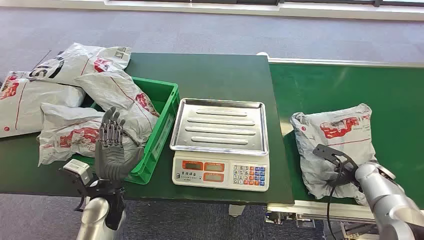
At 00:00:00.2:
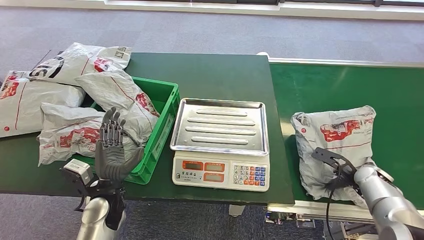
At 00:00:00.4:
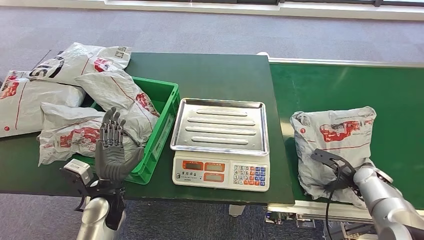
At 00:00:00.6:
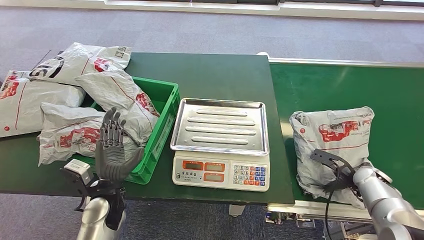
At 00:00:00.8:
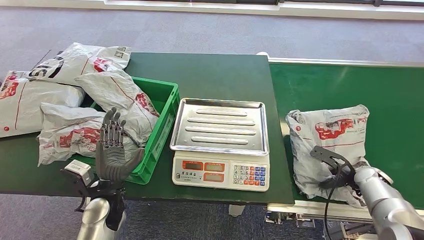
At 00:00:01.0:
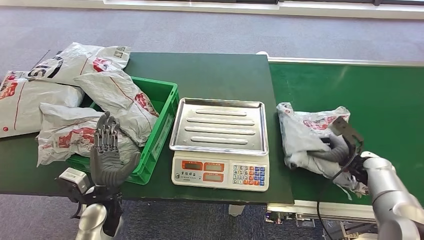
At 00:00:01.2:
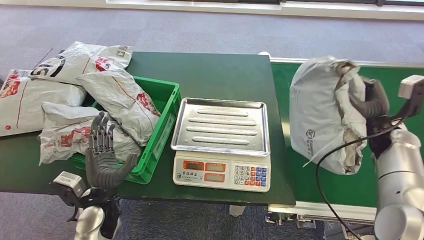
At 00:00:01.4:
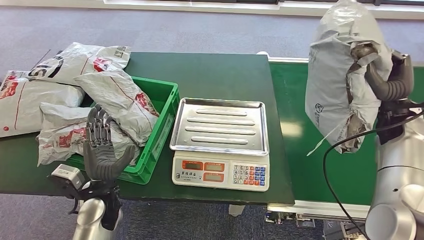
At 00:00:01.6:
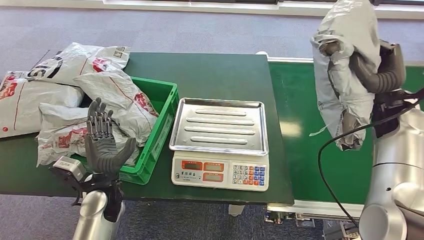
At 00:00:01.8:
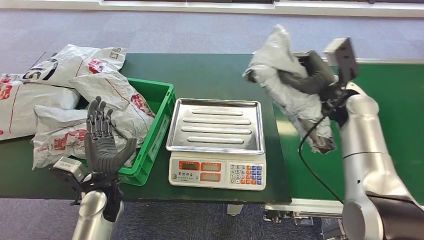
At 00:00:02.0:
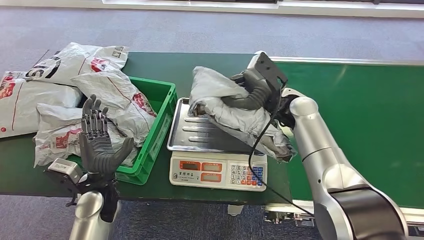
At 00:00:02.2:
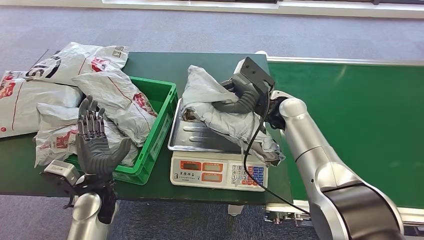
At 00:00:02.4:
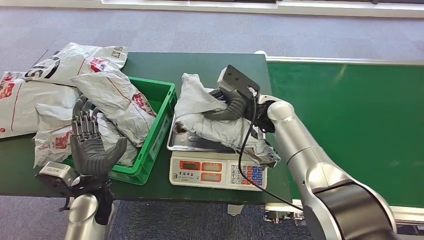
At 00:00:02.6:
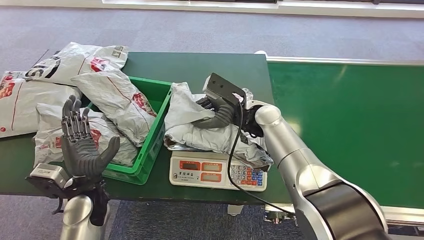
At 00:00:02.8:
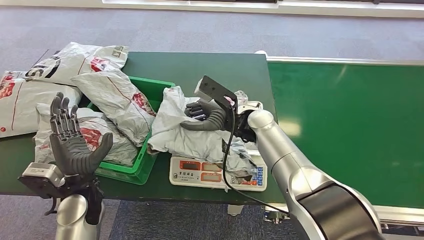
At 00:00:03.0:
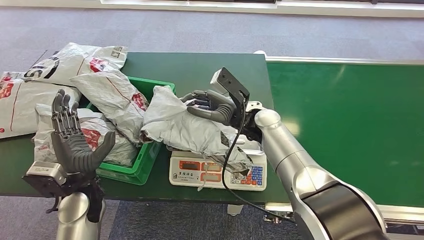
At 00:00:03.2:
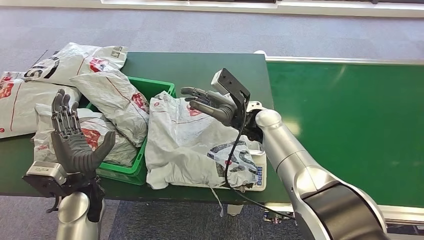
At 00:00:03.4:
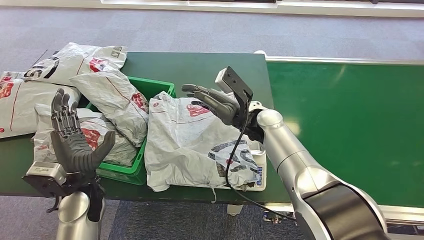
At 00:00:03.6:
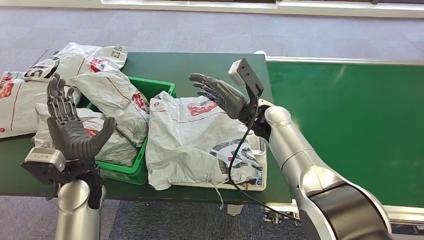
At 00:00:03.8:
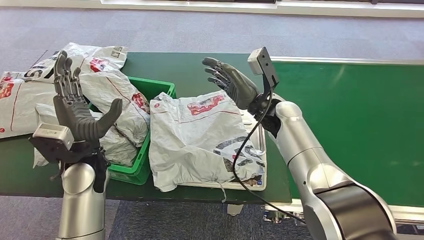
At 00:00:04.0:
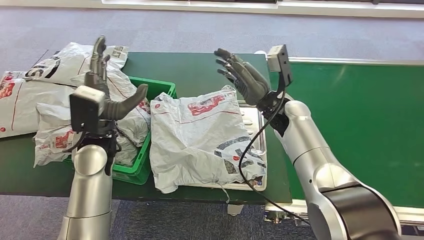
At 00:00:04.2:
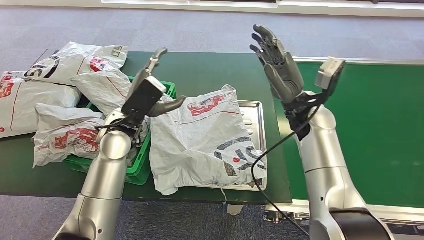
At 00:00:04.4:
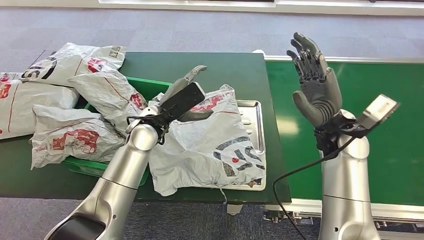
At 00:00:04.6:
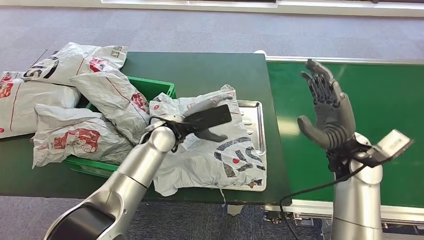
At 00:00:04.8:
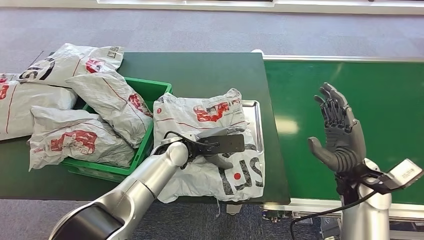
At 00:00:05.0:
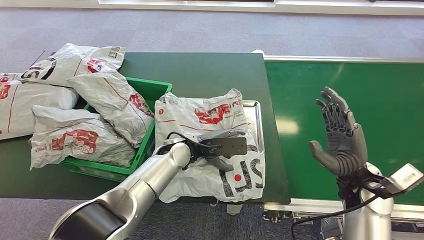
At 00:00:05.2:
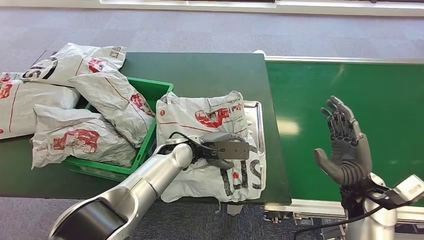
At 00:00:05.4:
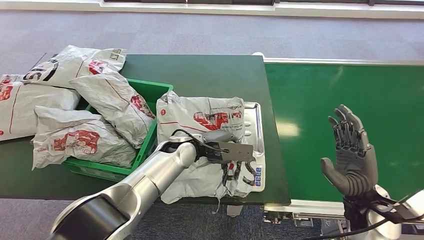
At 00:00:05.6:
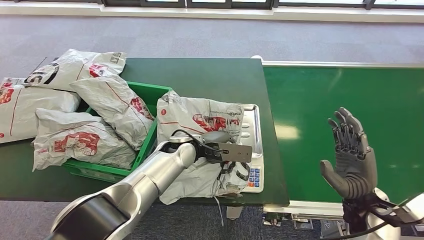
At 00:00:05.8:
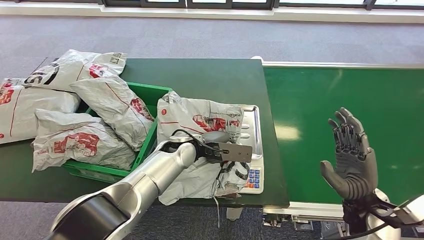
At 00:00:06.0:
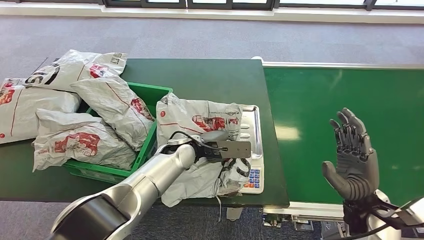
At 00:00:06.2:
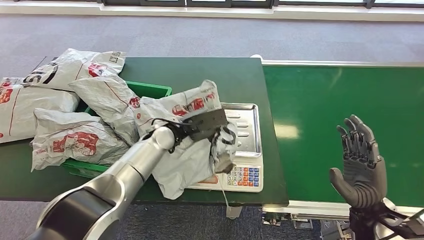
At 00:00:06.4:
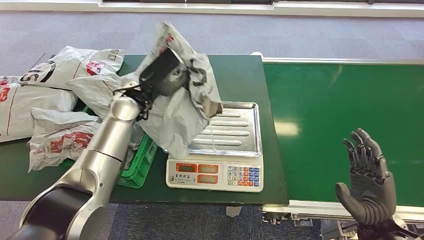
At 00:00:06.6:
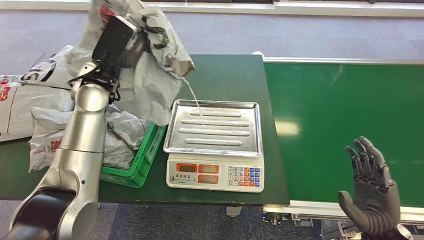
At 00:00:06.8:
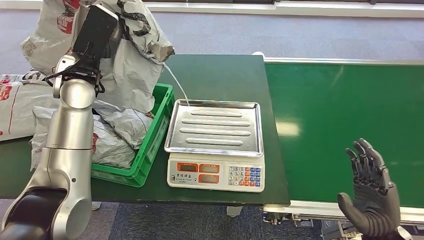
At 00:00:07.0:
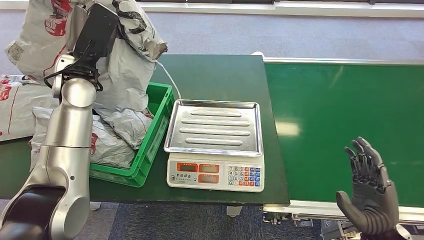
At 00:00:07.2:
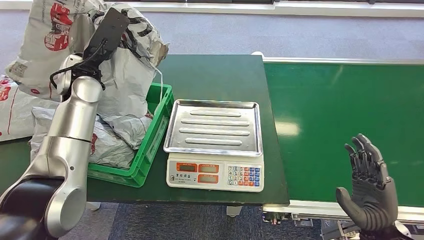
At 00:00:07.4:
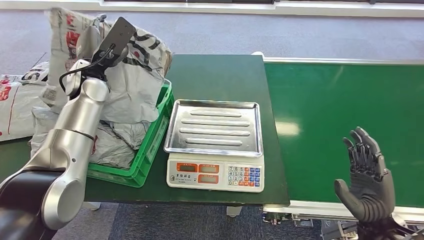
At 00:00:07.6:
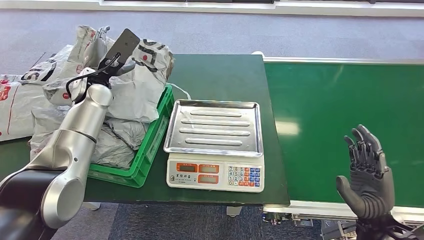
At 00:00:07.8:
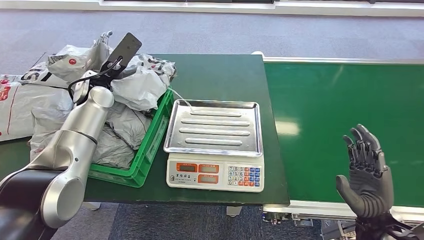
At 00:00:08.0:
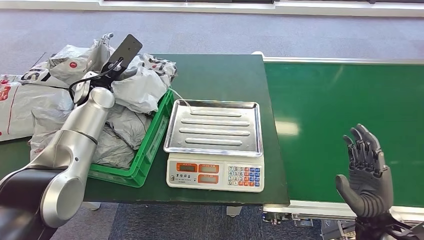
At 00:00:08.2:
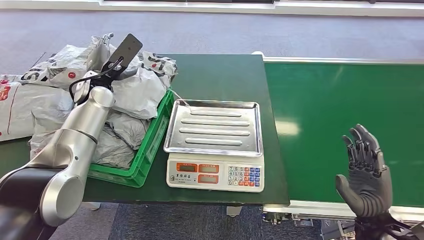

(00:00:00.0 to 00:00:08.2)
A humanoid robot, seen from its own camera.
Step, 00:00:00.0 - 00:00:01.2: Pick up the package from the conveyor belt.
Step, 00:00:01.4 - 00:00:03.6: Place the package onto the inbound machine.
Step, 00:00:04.0 - 00:00:06.6: Pick up the package from the inbound machine.
Step, 00:00:06.8 - 00:00:08.0: Place the package into the parcel locker.
